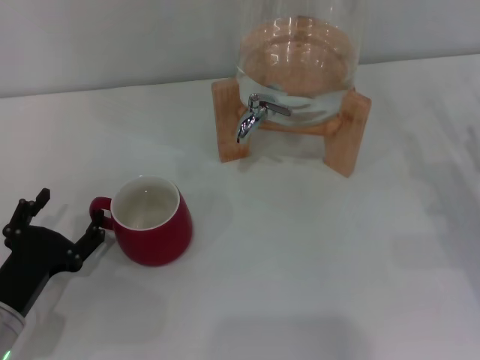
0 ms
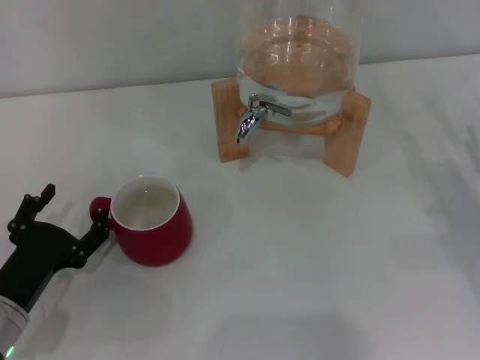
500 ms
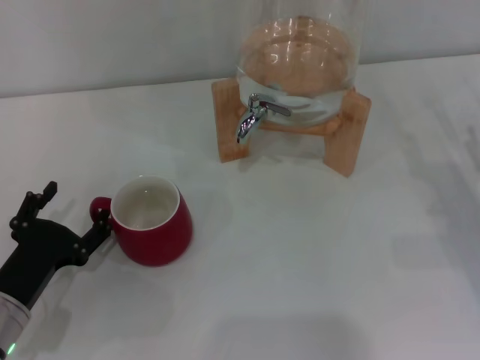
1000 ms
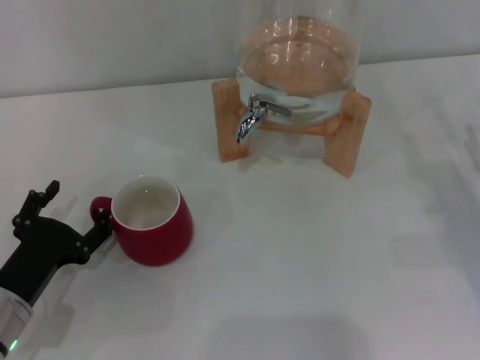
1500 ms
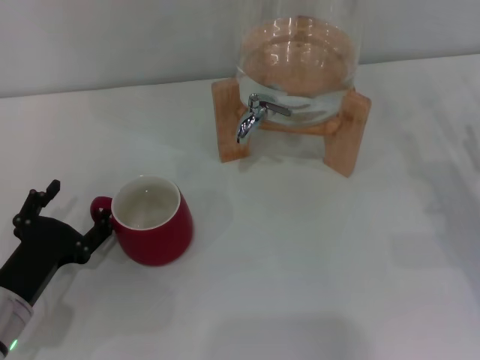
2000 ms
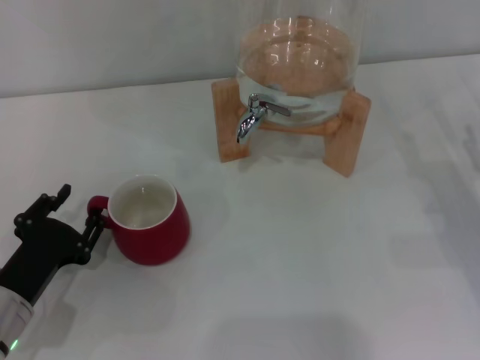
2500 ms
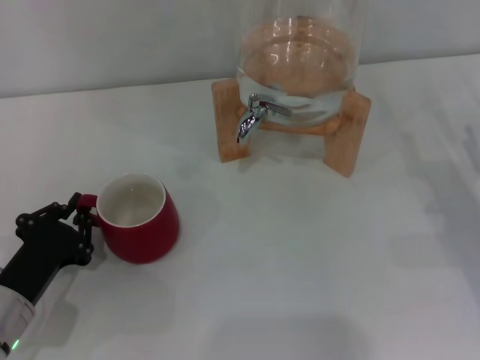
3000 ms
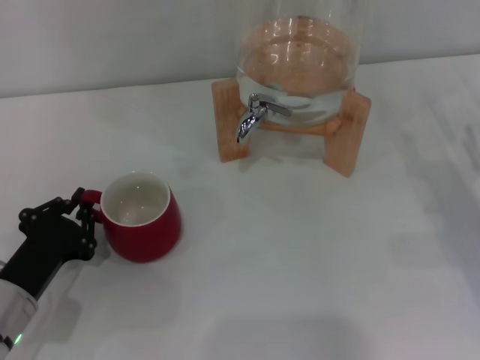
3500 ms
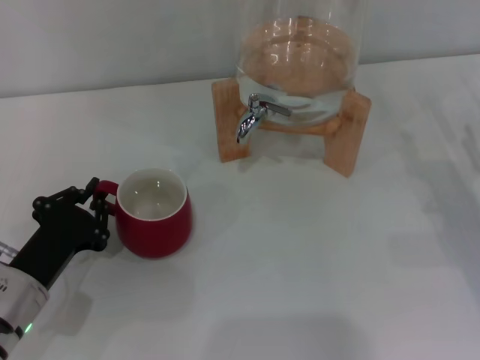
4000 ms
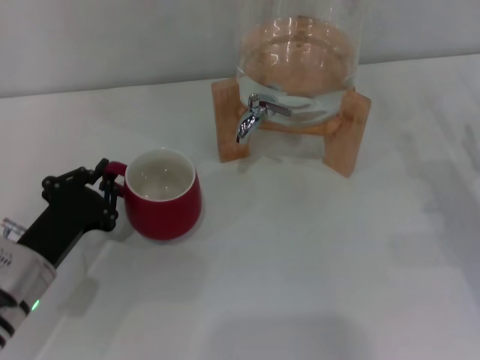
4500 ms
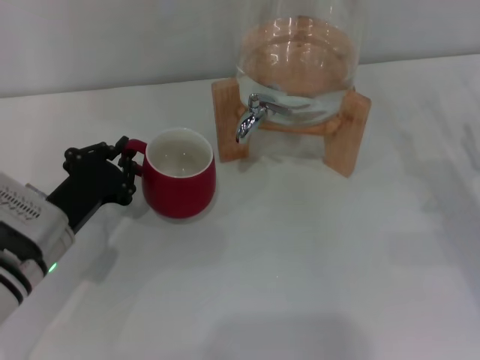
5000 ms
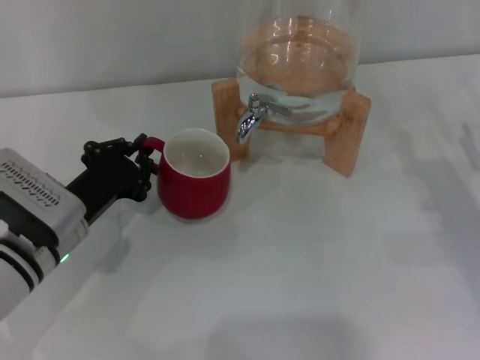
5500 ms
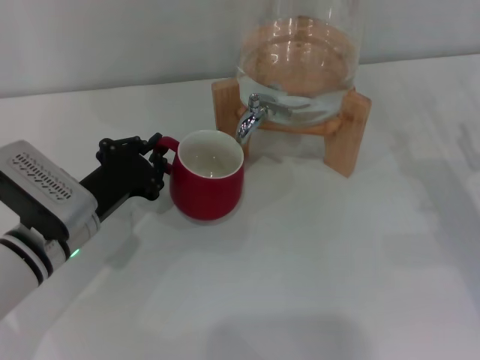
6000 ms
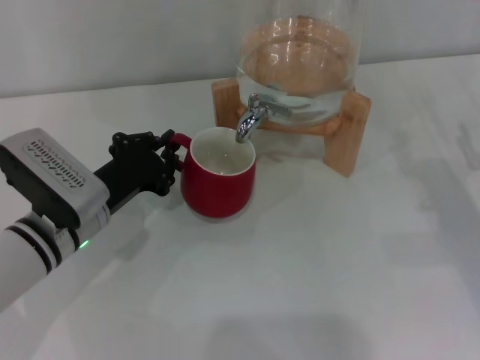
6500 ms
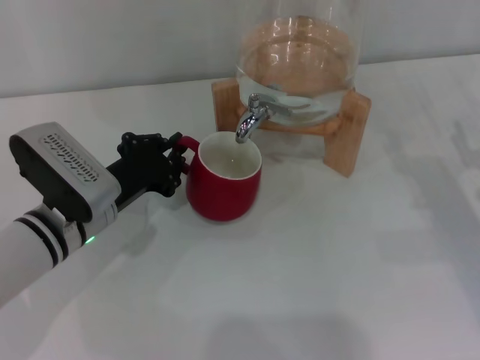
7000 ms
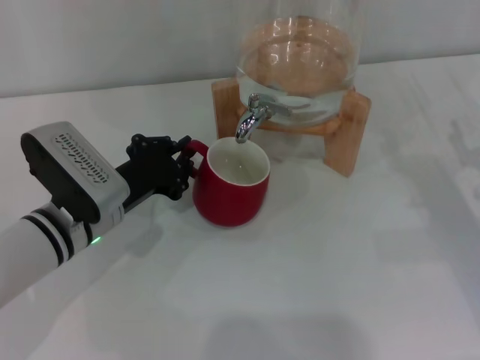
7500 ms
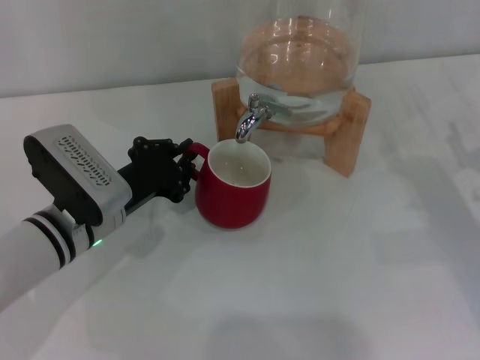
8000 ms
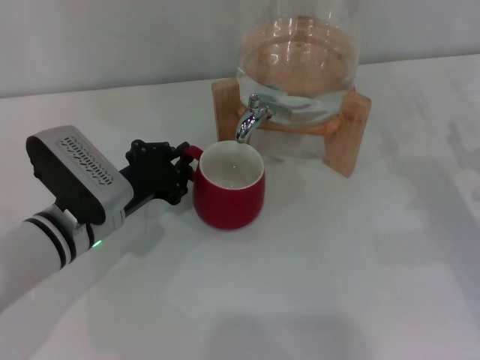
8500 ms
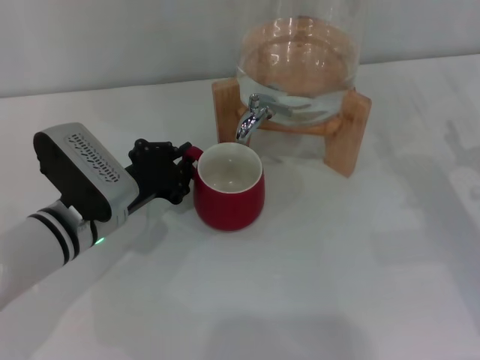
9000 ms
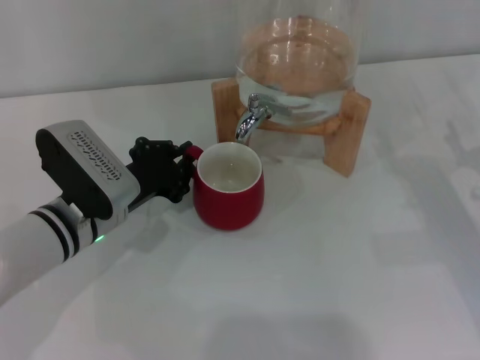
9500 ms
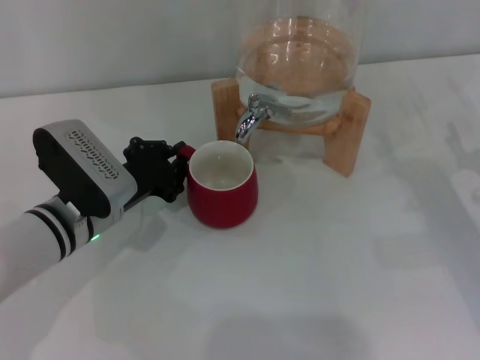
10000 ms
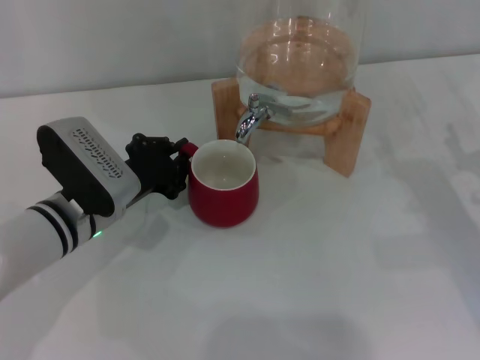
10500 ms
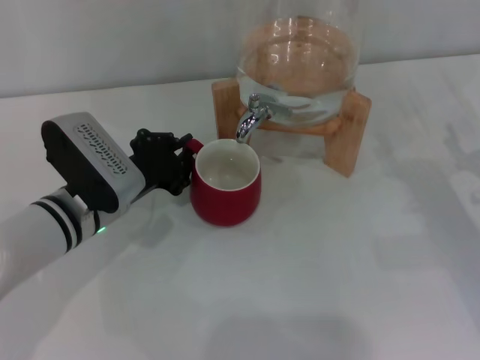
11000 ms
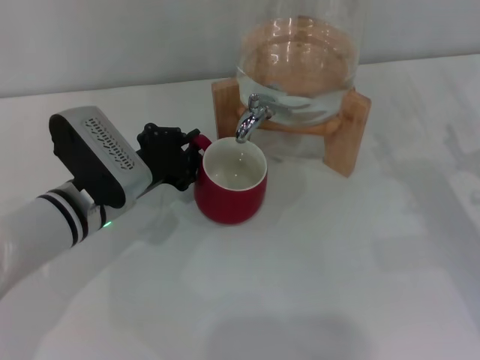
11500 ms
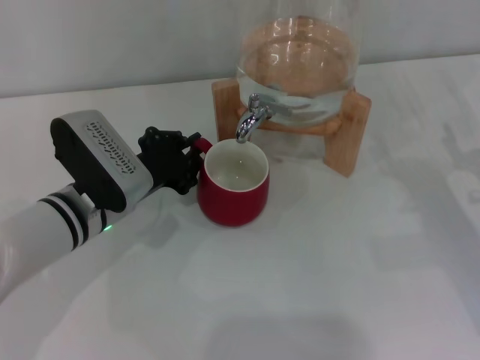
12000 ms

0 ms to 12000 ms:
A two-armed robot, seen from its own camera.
Task of the whole recording: the left gripper pick up the red cup and place it horizontally under the faucet, the right gripper turn on the faucet to fill the cup, and then turn off the faucet.
0 ms to 2000 ms: Both grippers stay about where they are.
2000 ms to 4000 ms: The left gripper closes.
4000 ms to 6000 ms: The left gripper shifts about 10 cm forward and to the right.
6000 ms to 12000 ms: There are only small adjustments of the grippers.

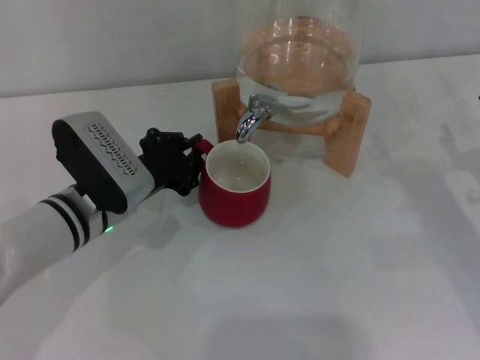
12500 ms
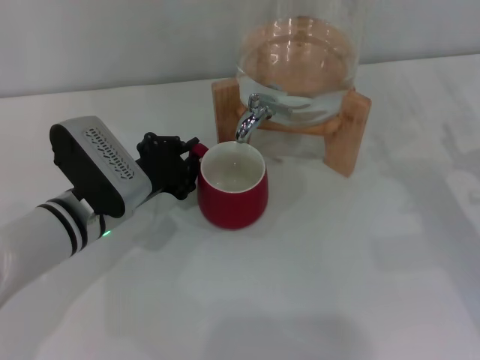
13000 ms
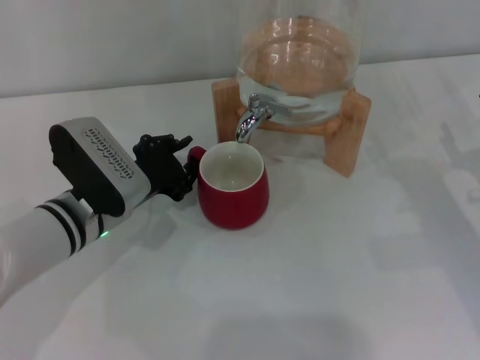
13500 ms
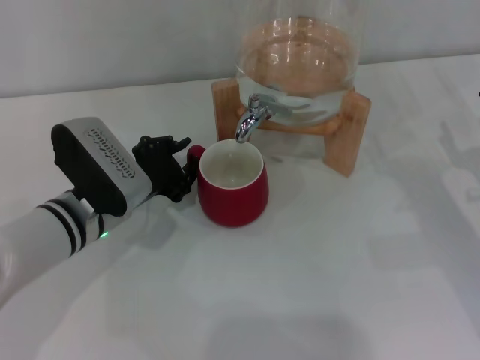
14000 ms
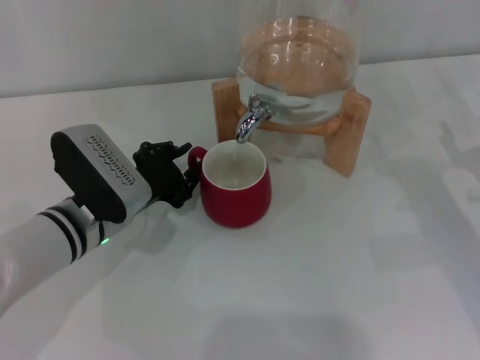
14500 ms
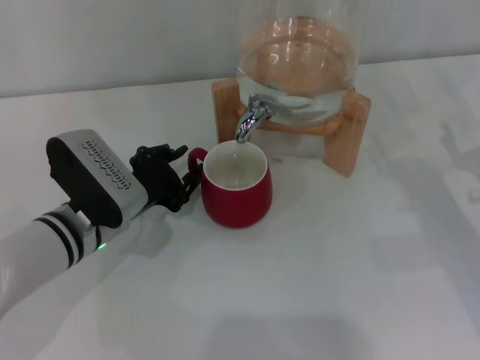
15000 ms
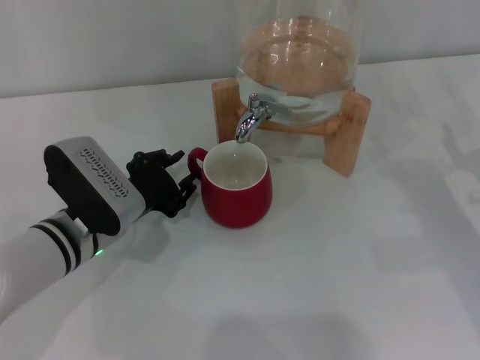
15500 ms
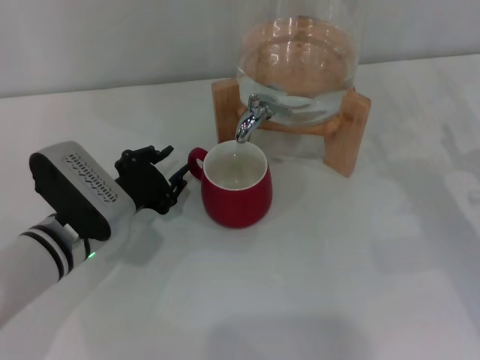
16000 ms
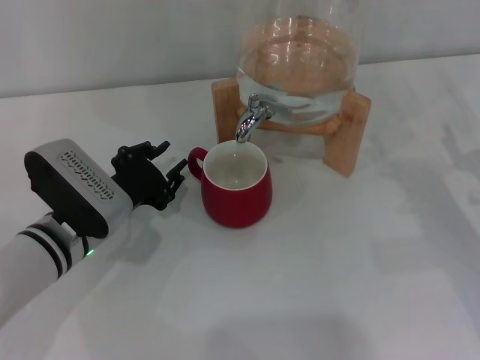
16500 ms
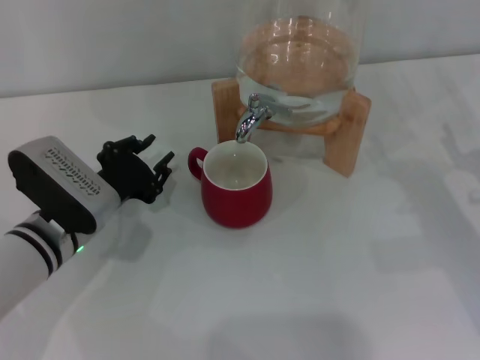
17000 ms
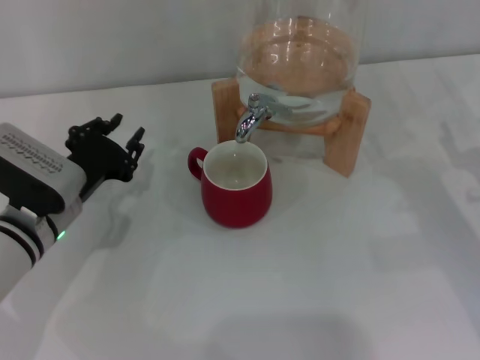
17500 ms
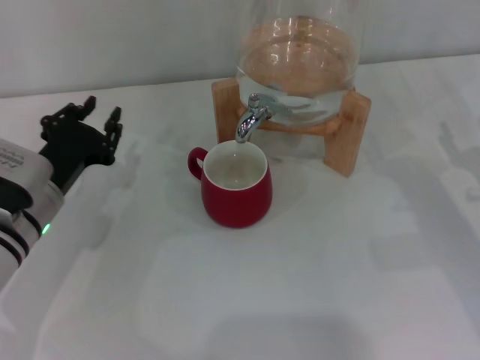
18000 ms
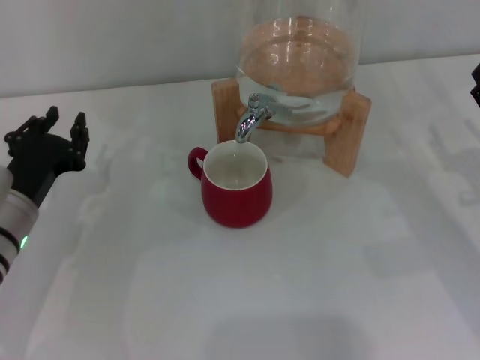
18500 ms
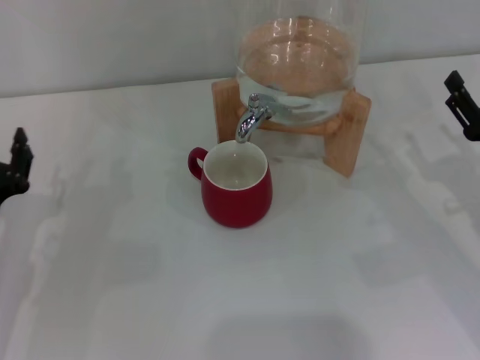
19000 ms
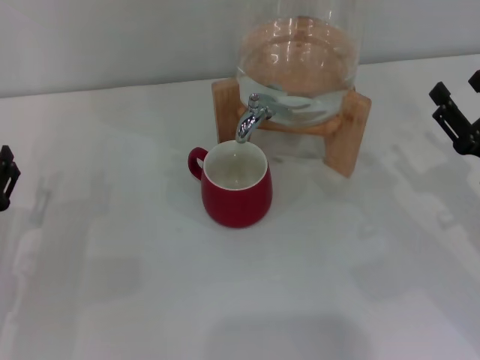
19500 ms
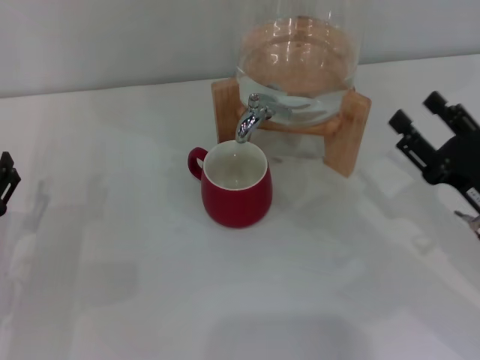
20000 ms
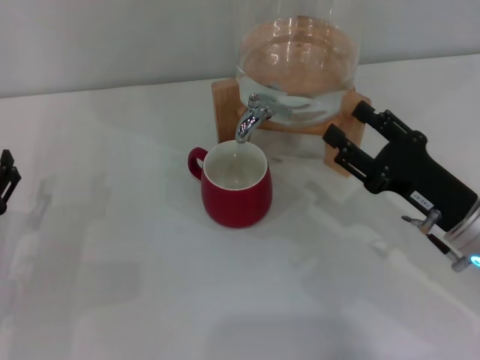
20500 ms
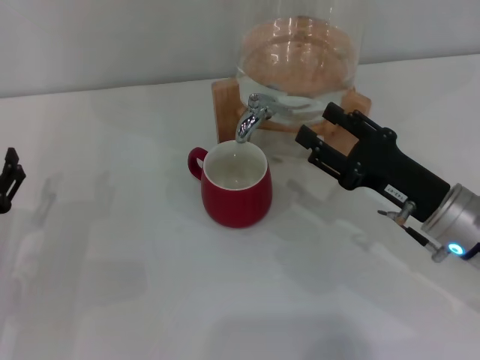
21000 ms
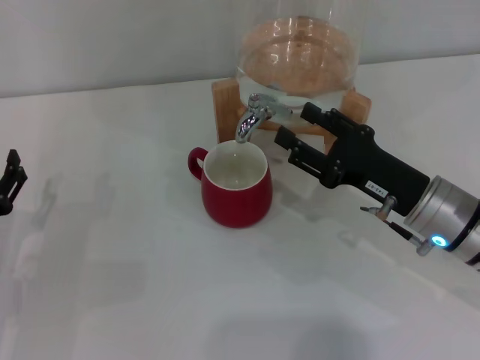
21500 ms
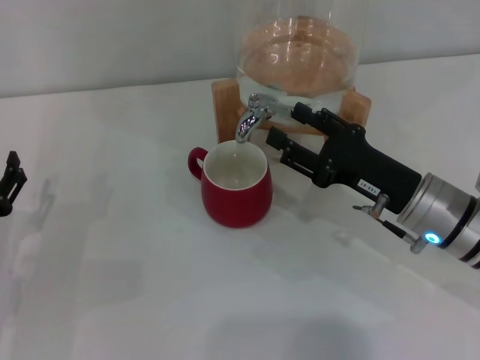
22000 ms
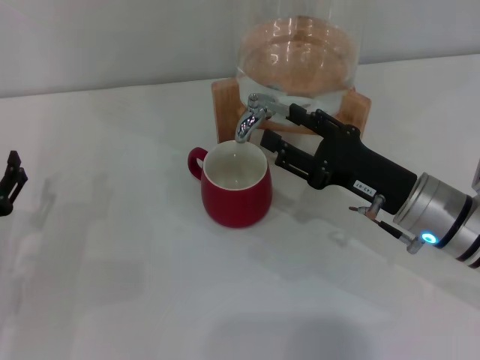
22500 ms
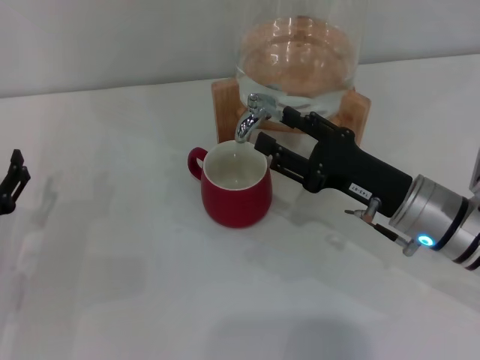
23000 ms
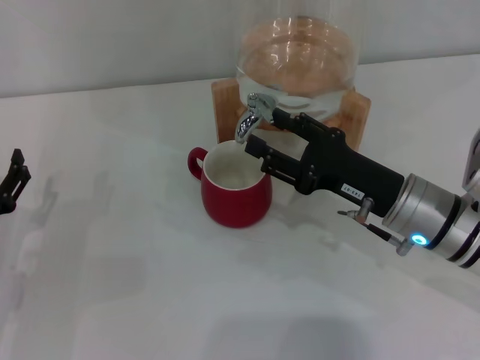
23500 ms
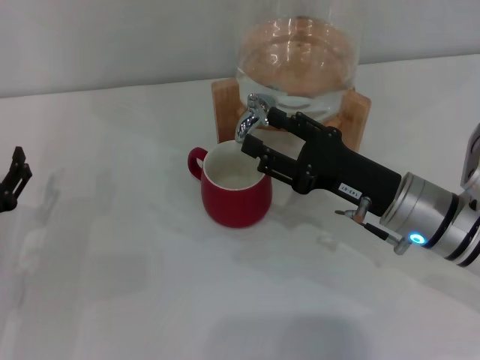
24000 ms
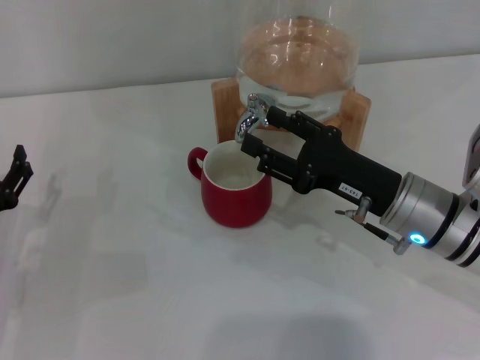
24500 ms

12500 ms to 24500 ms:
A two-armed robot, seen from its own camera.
Task of the whole recording: the left gripper pick up the red cup and place it horizontally under the faucet, the right gripper turn on the faucet to fill the cup, and then turn off the faucet.
Step, 12500 ms to 16000 ms: Move the cup beneath the water dispenser nozzle with the left gripper.
12500 ms to 14500 ms: Both grippers stay about where they are.
14500 ms to 16500 ms: The grippers move only a little.
16500 ms to 18500 ms: The left gripper moves to the left, roughly 5 cm.
18500 ms to 20500 ms: The left gripper moves backward and to the left, about 10 cm, and opens, while the right gripper goes approximately 10 cm to the left.
20500 ms to 22500 ms: The right gripper ends up roughly 5 cm from where it was.
22500 ms to 24500 ms: The grippers move only a little.

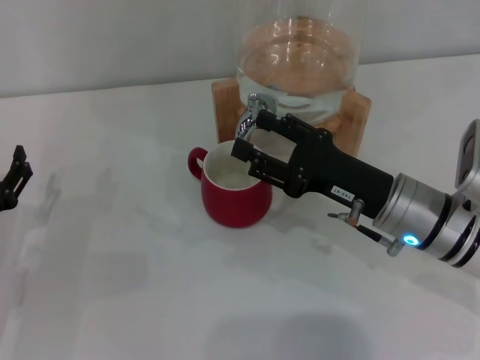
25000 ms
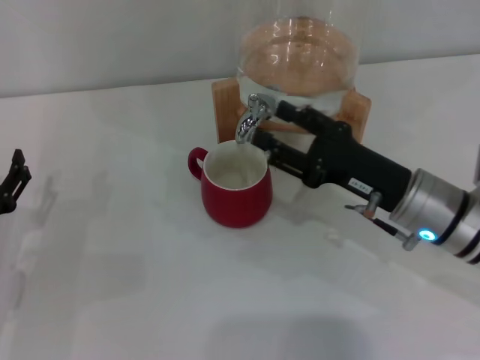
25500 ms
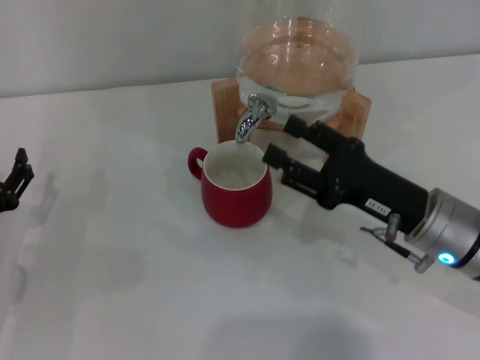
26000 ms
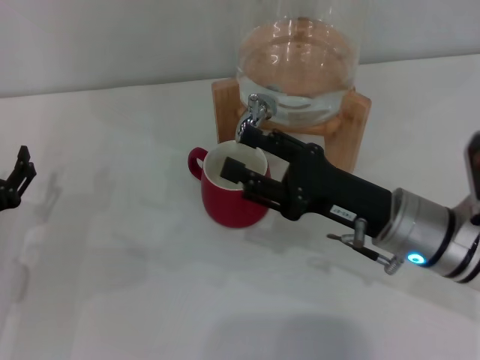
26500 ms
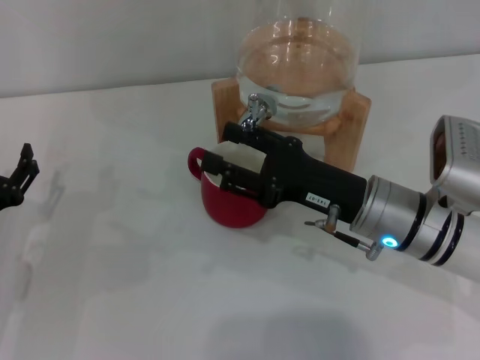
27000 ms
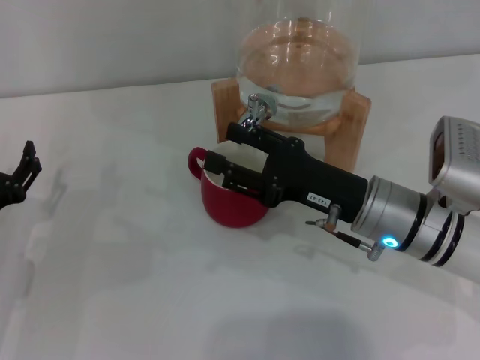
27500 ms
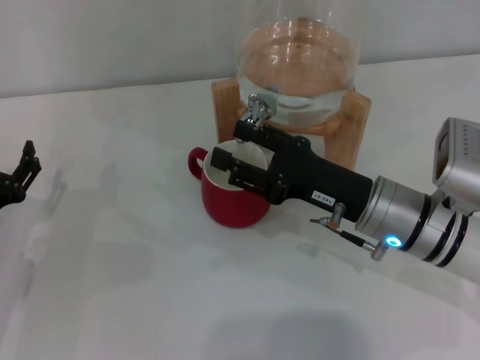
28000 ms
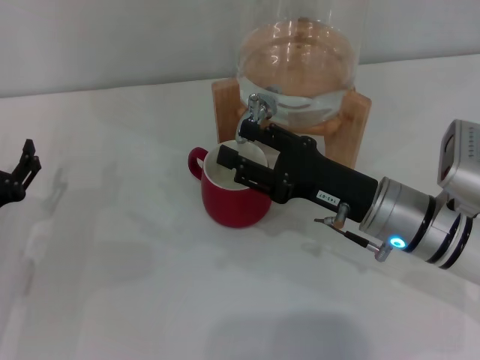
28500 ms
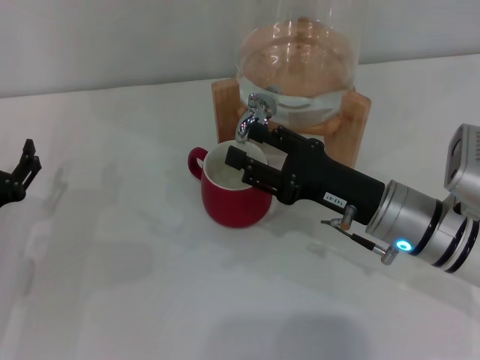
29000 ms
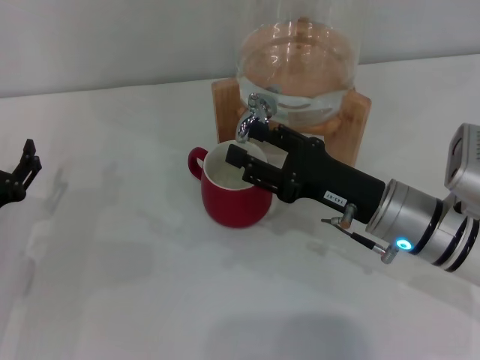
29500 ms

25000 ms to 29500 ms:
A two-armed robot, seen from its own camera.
Task of the whole recording: the left gripper pick up the red cup and place it horizontally under the faucet, the right gripper turn on the faucet to fill the cup, and then turn off the faucet.
25000 ms to 29500 ms: There are only small adjustments of the grippers.
